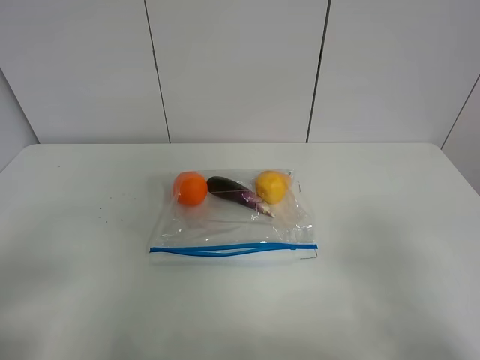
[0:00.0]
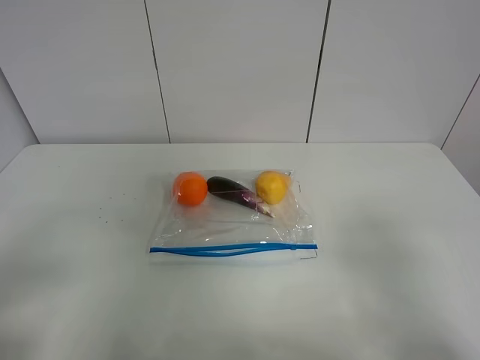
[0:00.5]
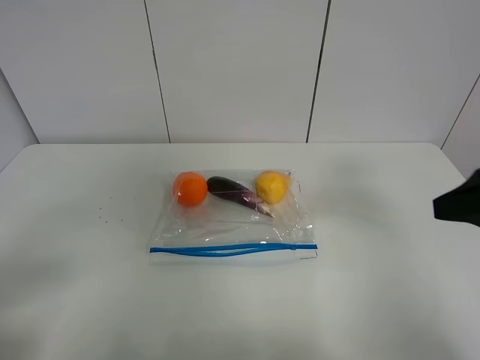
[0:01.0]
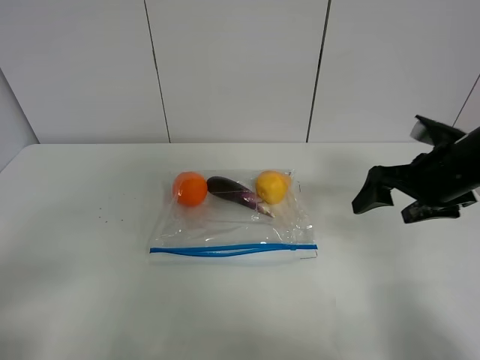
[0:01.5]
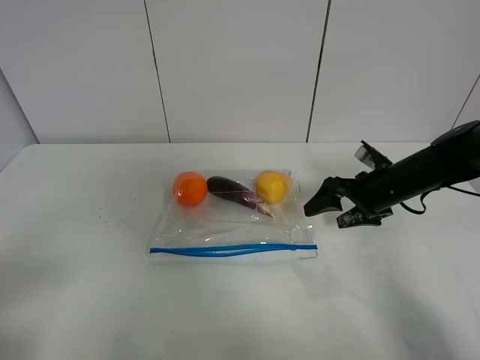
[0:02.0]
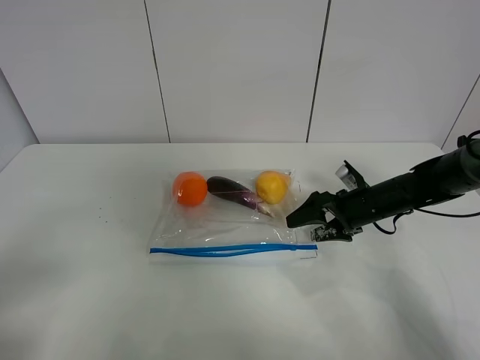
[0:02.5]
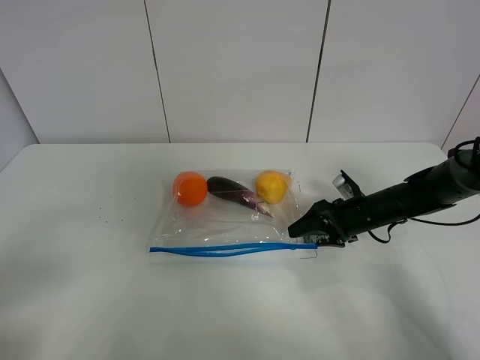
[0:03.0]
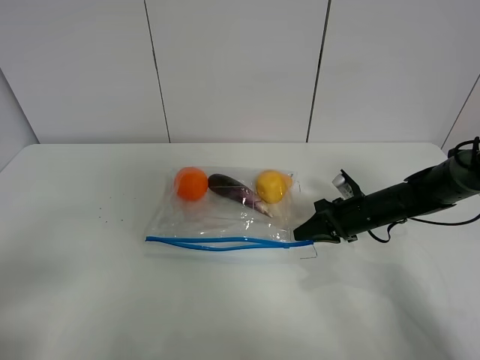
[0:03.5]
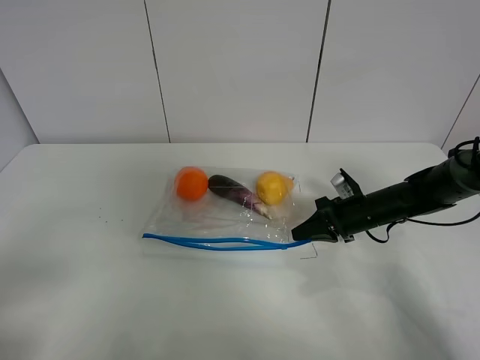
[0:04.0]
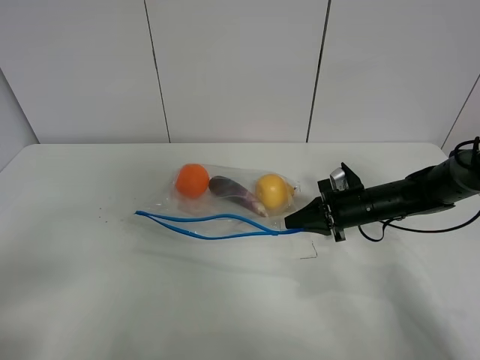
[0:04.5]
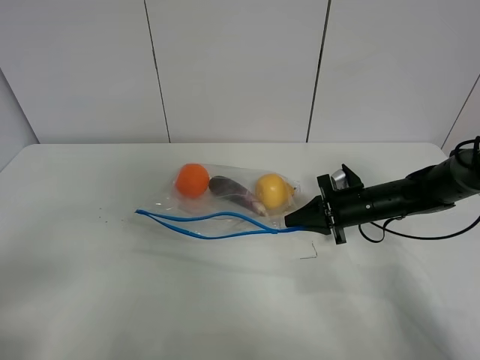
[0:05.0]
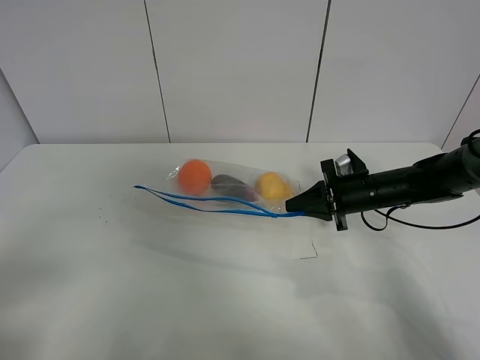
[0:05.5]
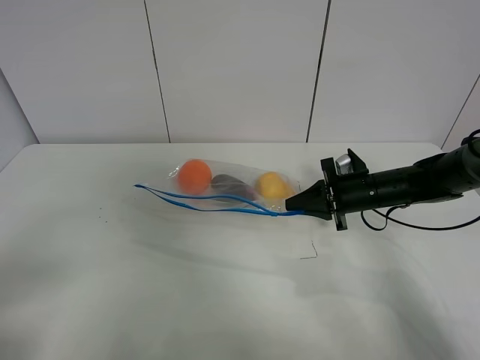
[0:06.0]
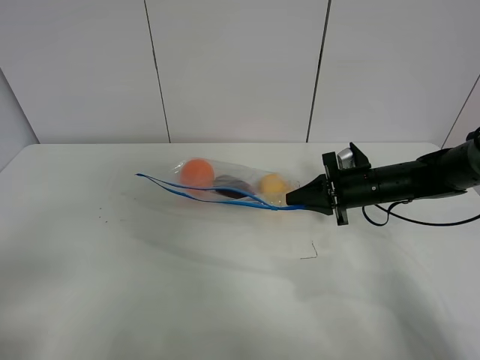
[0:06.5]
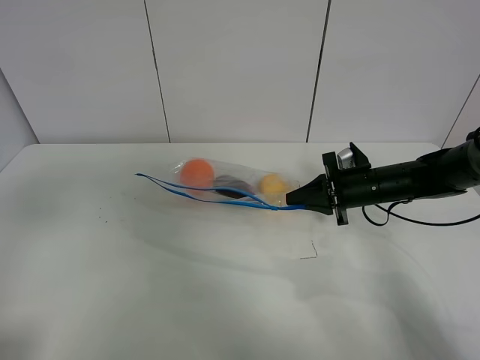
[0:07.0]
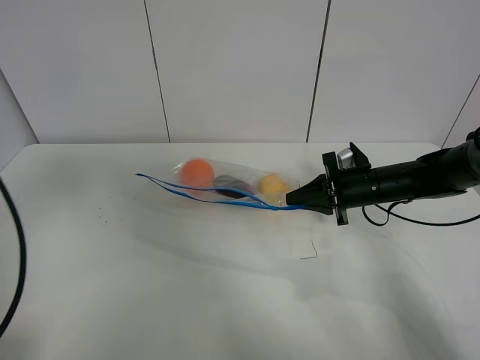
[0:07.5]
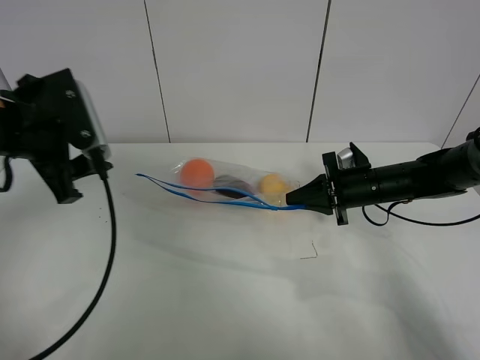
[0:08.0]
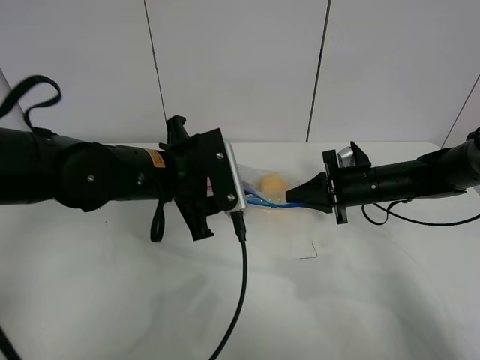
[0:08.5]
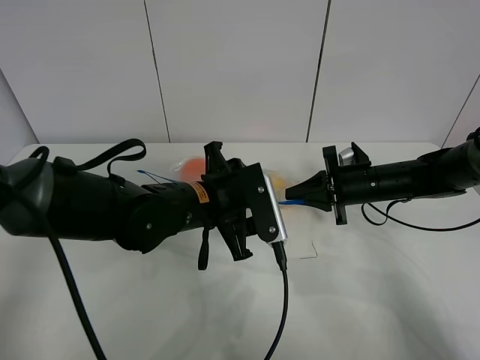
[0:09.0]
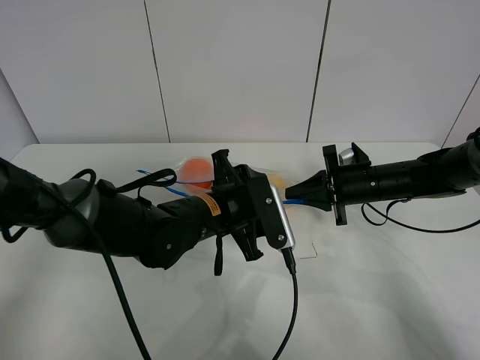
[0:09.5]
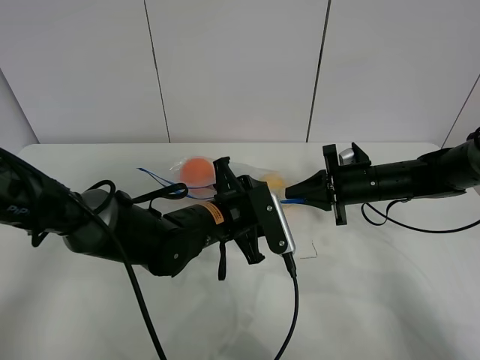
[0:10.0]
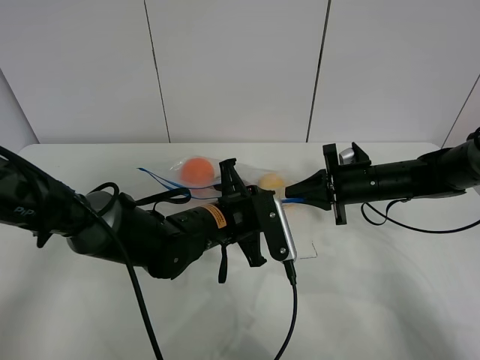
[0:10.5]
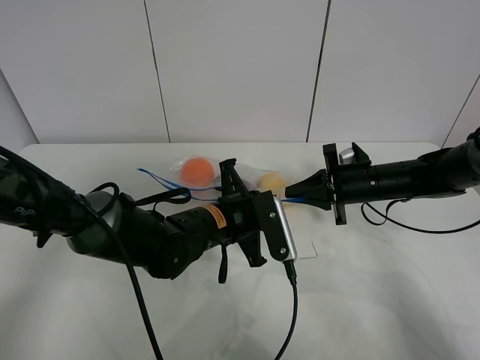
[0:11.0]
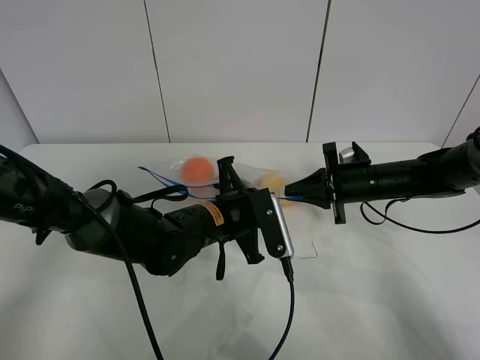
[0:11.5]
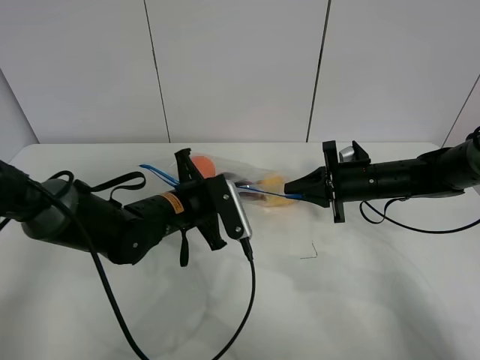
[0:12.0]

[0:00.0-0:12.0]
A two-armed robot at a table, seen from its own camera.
Step, 0:00.0 to 0:03.5: Grasp the fruit bag with right gripper.
Step, 0:04.0 to 0:06.0: Lift the fruit bag with your right gripper.
0:00.0 to 0:02.0: The right gripper shifts about 35 cm forward and downward.
0:02.0 to 0:04.0: The right gripper is displaced downward by approximately 5 cm, and closes up.
0:04.0 to 0:06.0: There are only small adjustments of the grippers.
0:06.0 to 0:08.0: The left gripper is displaced forward by roughly 25 cm.
0:08.0 to 0:10.0: The left gripper heads to the right and downward, covering about 25 cm.
0:10.0 to 0:12.0: The left gripper shifts roughly 5 cm to the left, and closes its fingers.

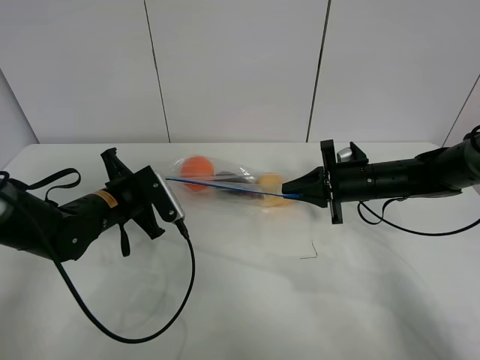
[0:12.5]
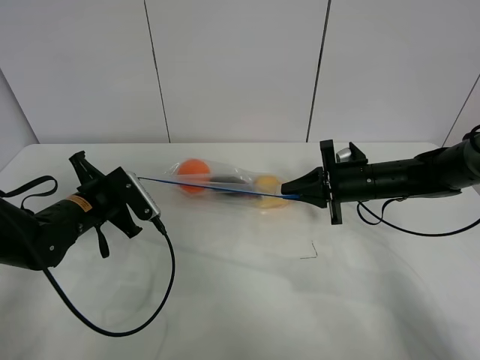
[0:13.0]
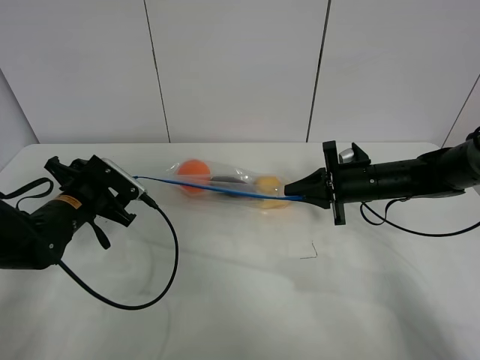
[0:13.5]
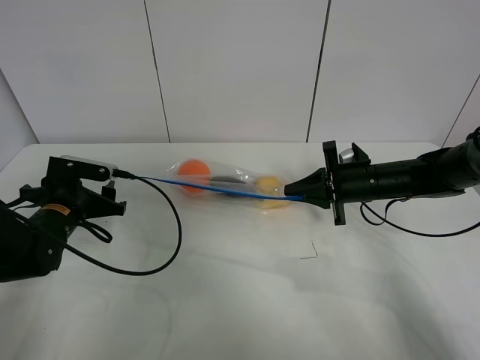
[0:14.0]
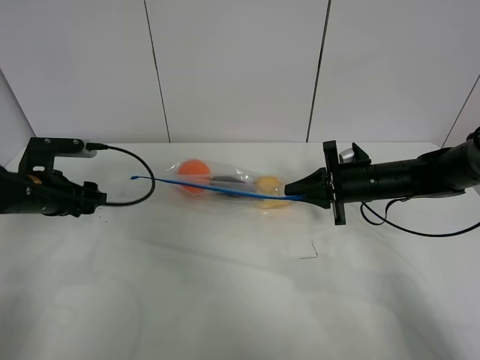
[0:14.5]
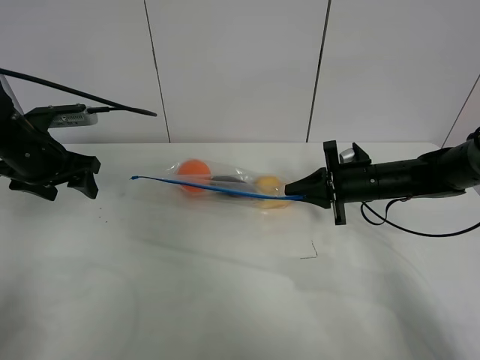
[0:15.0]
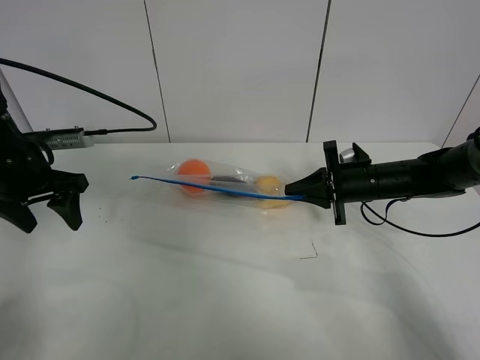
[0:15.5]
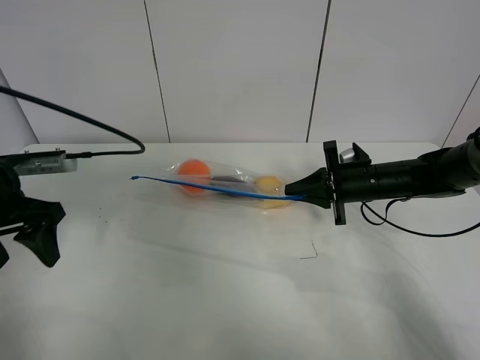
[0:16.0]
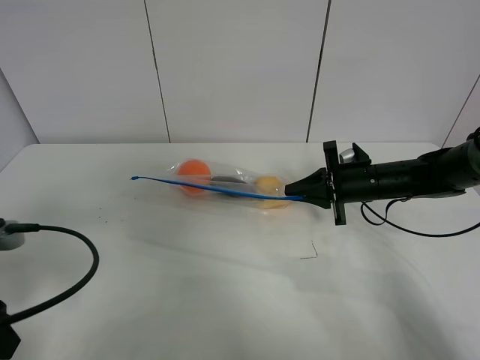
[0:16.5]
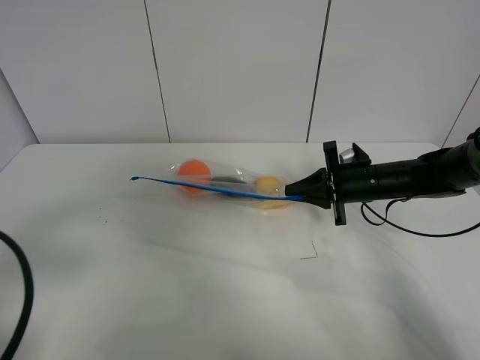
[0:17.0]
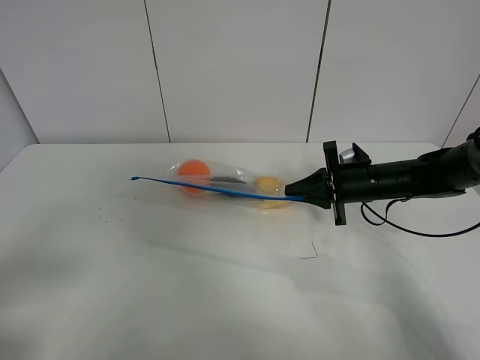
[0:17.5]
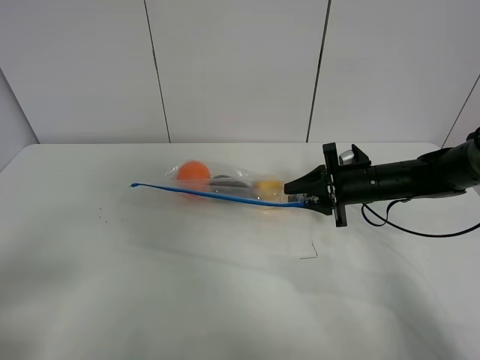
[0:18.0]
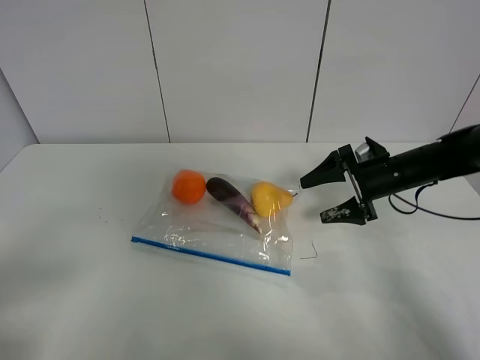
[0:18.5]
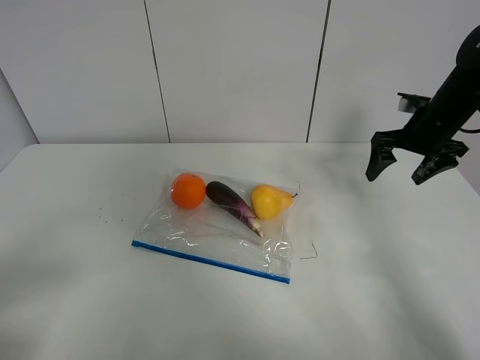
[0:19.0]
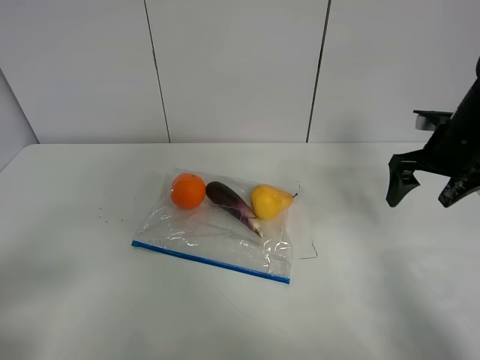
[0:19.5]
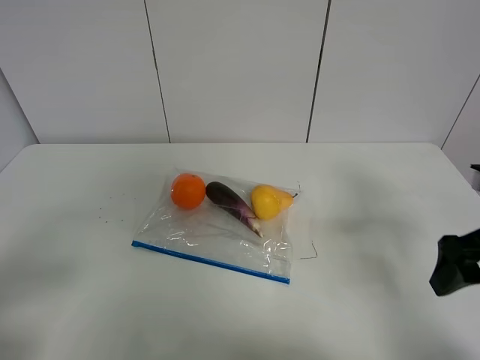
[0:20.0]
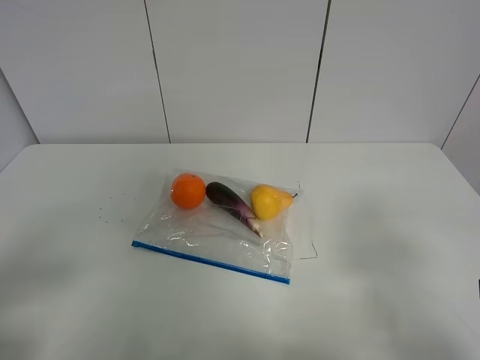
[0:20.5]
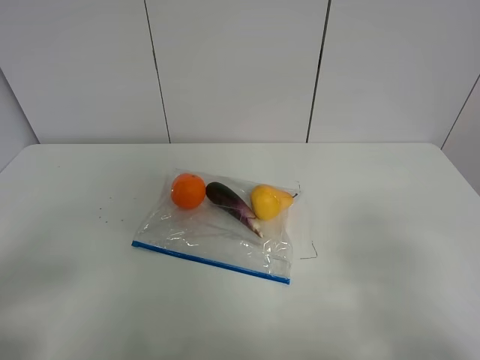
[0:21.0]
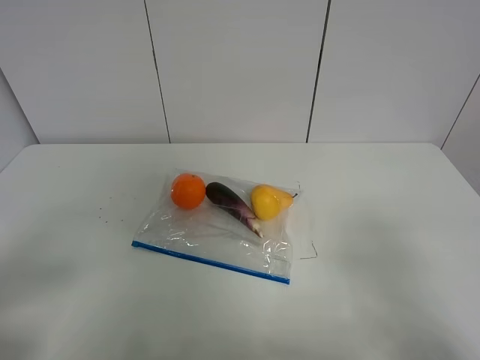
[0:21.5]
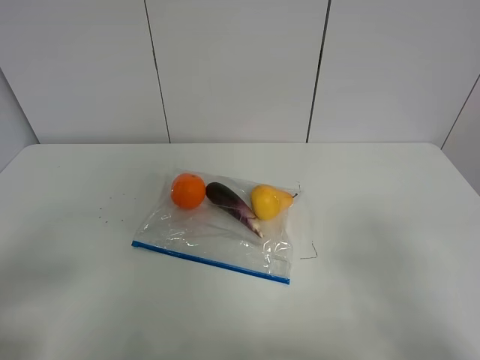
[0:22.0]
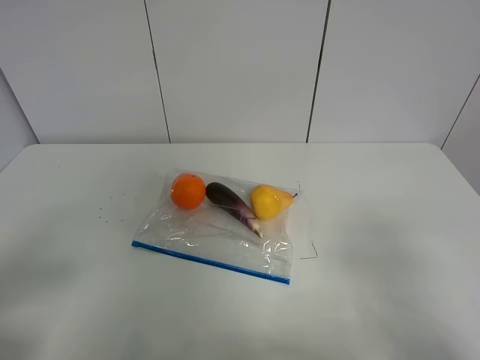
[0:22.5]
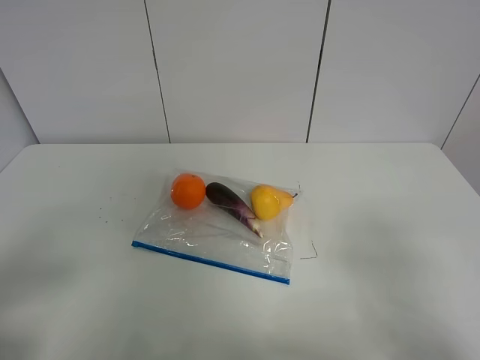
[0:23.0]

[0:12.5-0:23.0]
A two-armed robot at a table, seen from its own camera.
0:12.5 to 0:14.5: The left gripper moves to the left, roughly 10 cm, and opens up.
0:14.5 to 0:16.5: The left gripper travels backward by some 20 cm.
0:16.5 to 0:19.0: The left gripper heads backward, covering approximately 10 cm. The right gripper moves upward and to the right, some 15 cm, and opens its fingers.
0:19.0 to 0:21.0: The right gripper travels backward by some 35 cm.

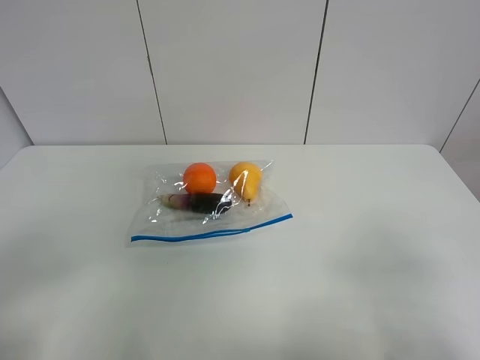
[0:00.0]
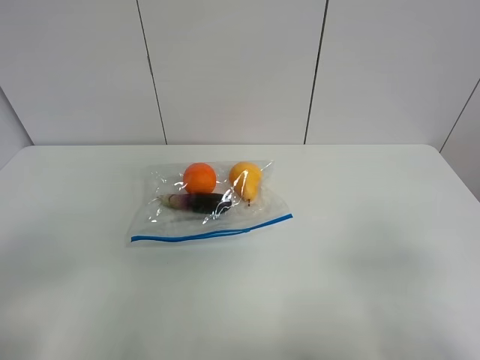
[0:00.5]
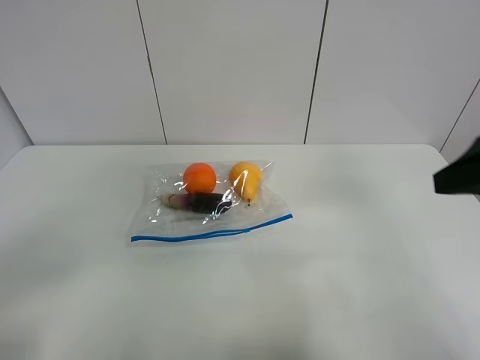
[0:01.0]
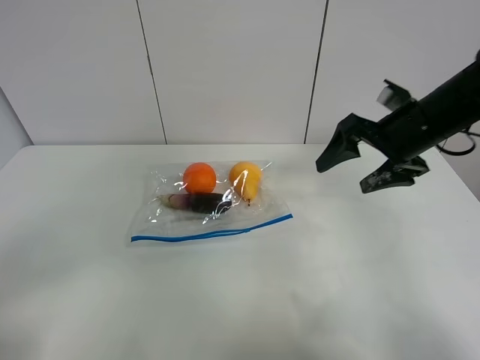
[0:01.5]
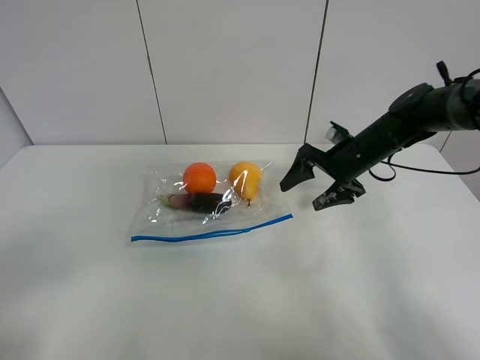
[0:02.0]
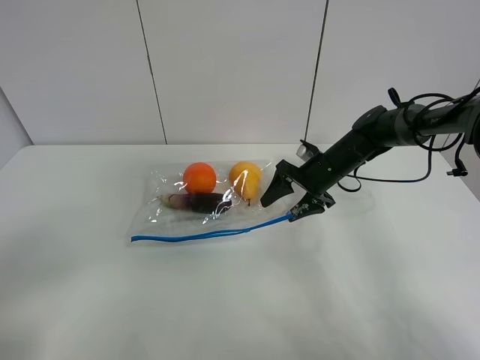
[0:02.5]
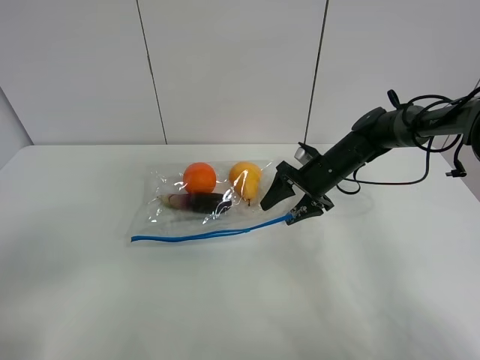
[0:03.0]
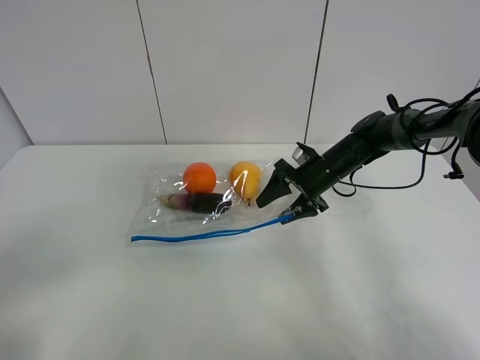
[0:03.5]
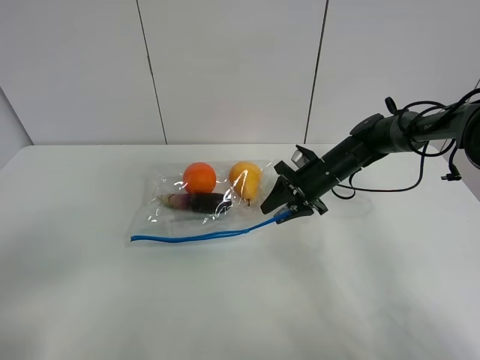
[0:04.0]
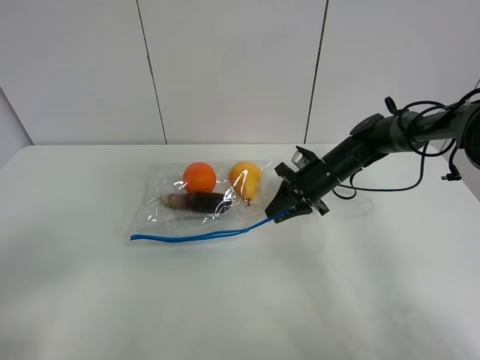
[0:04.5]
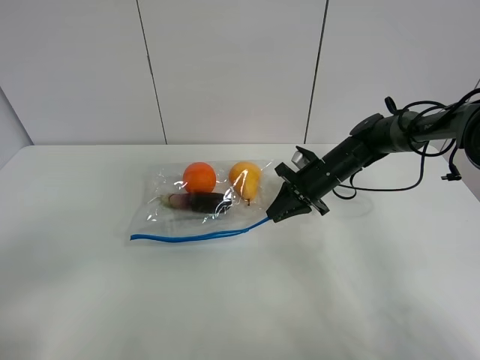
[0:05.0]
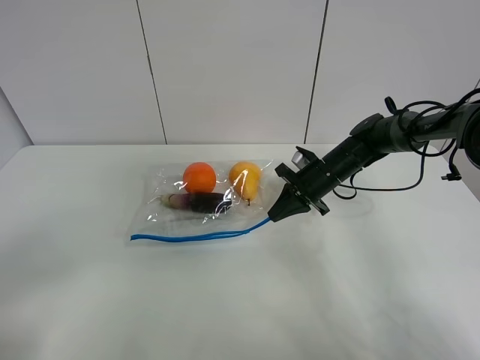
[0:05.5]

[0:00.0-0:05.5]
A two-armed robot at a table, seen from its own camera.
Step, 0:00.0 to 0:05.0: Grasp the fruit bag with right gripper.
0:00.0 to 0:02.0: The right gripper goes some 40 cm forward.
0:02.0 to 0:03.5: The right gripper is displaced downward by approximately 5 cm.
0:03.5 to 0:05.5: The right gripper closes its fingers.
